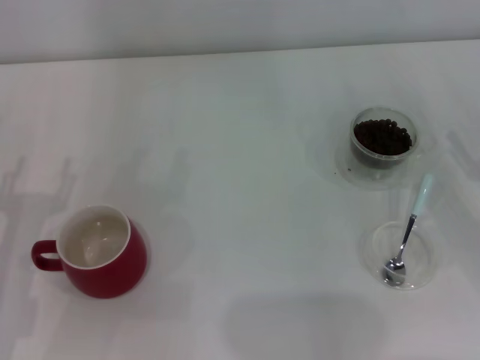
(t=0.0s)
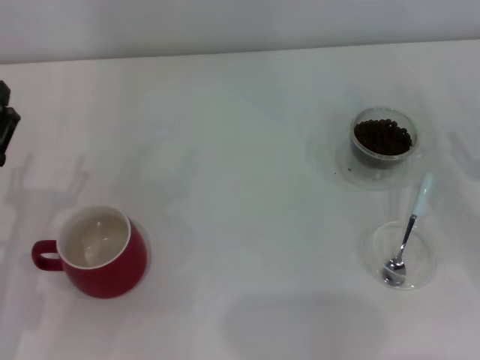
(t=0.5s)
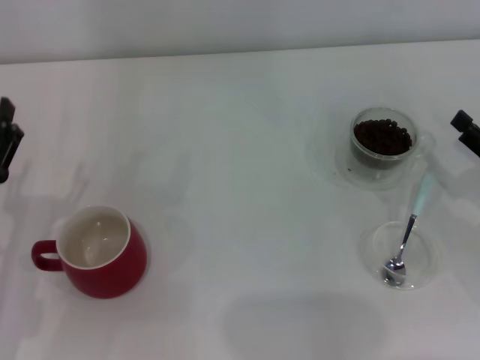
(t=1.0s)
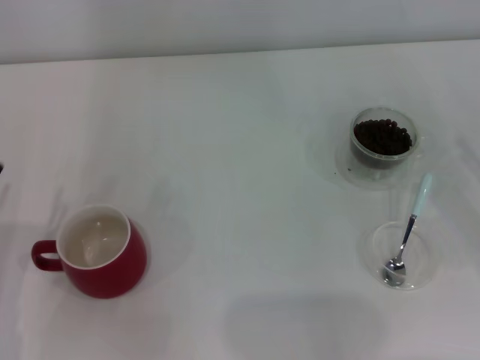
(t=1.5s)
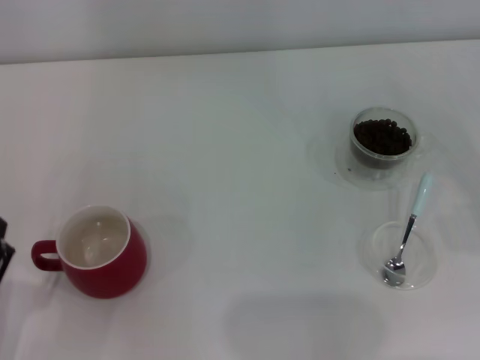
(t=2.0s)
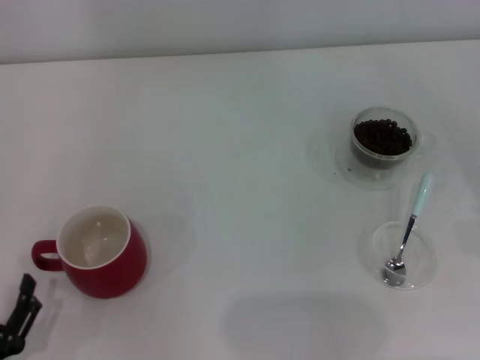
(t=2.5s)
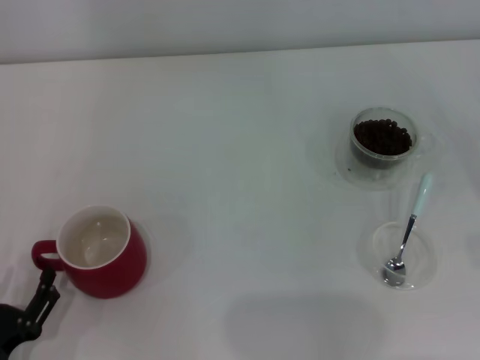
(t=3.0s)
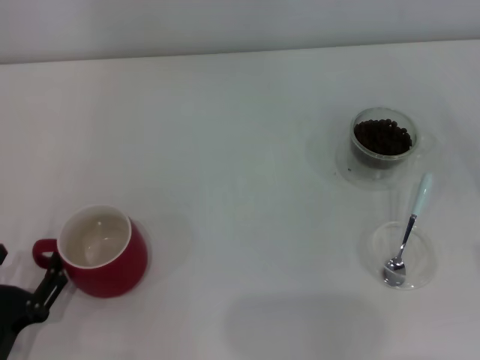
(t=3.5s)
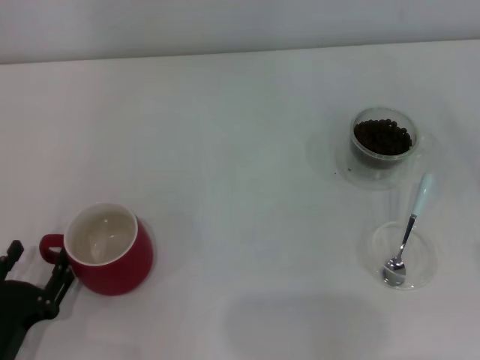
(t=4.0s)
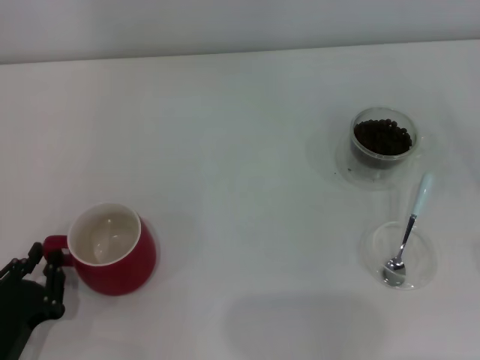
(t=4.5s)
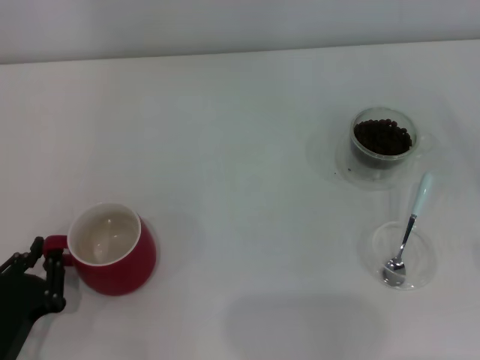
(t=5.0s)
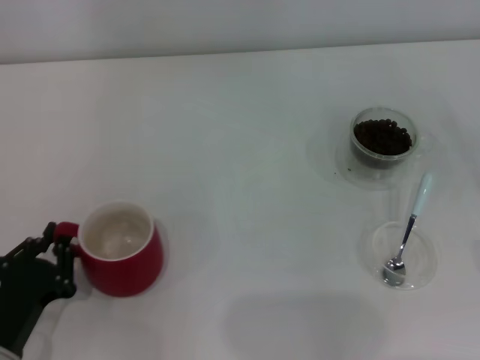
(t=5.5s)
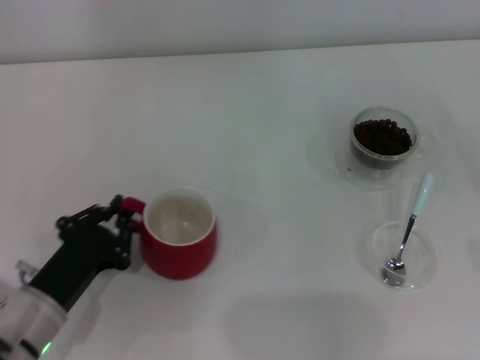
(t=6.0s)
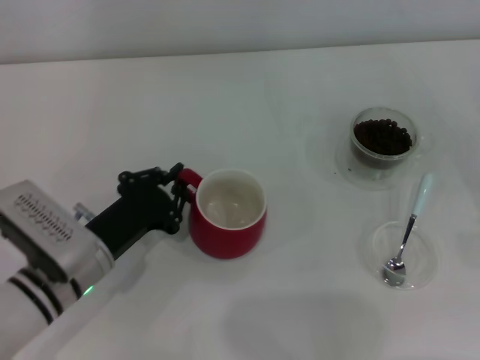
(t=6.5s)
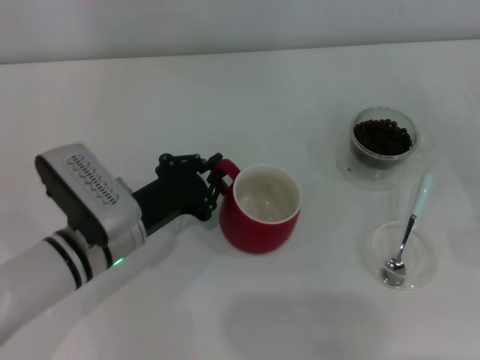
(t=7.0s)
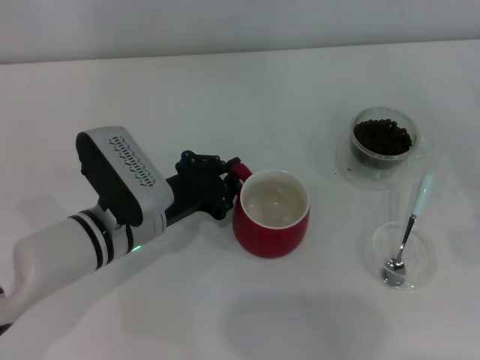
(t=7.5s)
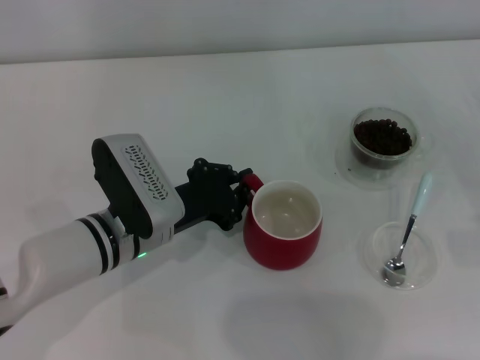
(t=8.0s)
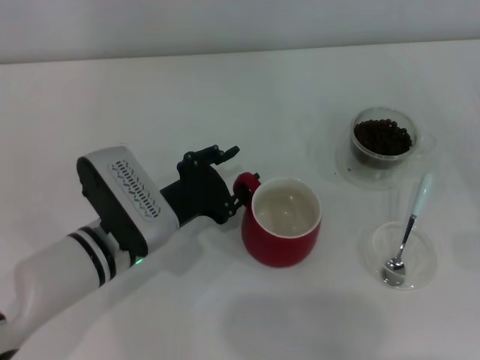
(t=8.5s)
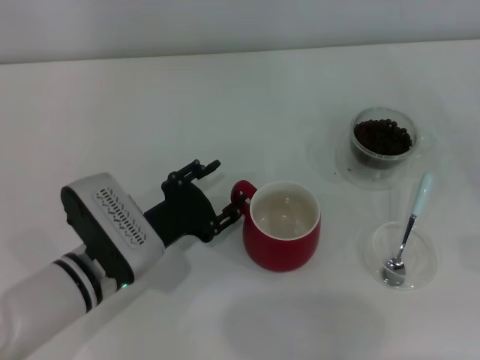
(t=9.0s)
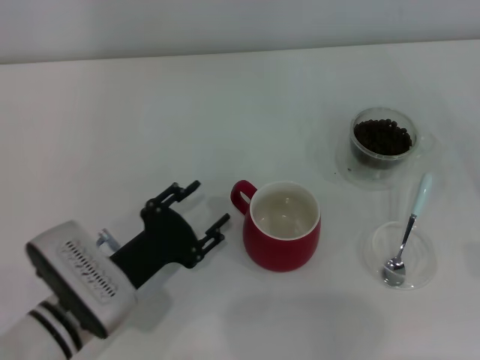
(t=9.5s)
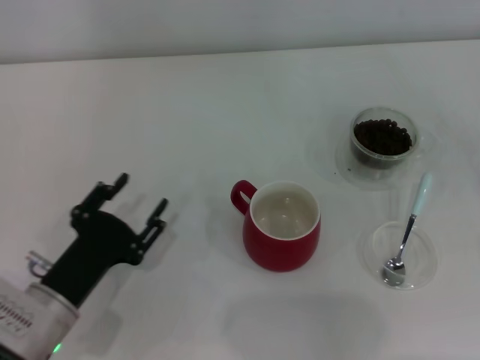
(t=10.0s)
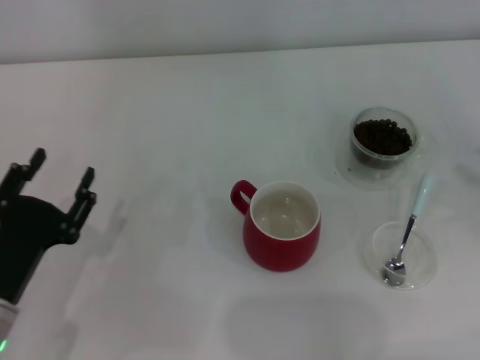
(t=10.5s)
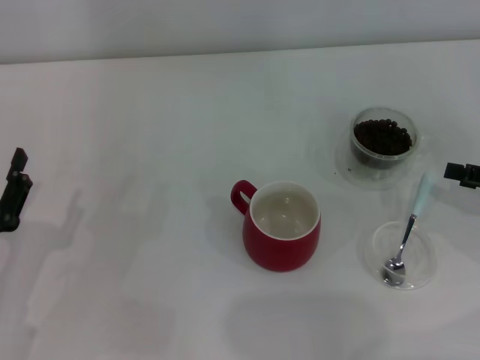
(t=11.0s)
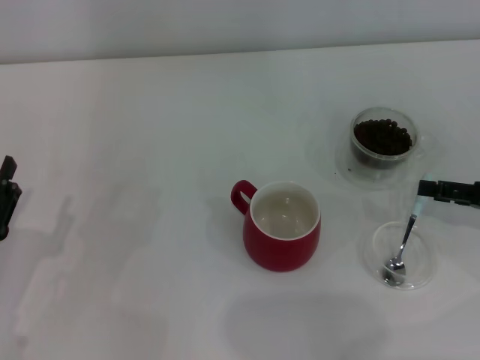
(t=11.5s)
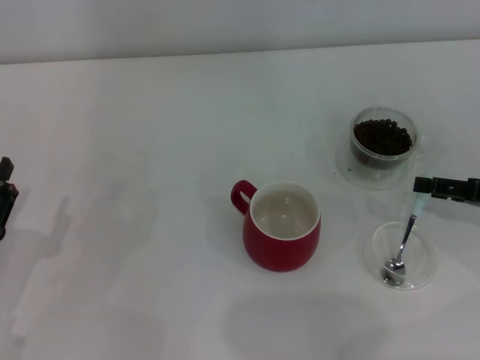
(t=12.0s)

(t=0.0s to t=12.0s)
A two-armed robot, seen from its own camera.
Task of the whole recording: Use a blue spoon to take out the coffee beans from the glass and pour them into the red cup.
Step, t=0.0s - t=9.5s: Move the cup to the center of view with the left gripper.
t=2.0s - t=4.0s: The grippers move only a little.
t=4.0s - t=6.0s: The left gripper moves forward, about 5 cm, and closes up.
t=6.0s - t=8.0s: The left gripper goes roughly 15 cm to the right and forward.
t=8.0s - t=10.0s: The left gripper goes some 15 cm backward and to the left, and opens up.
t=10.0s - t=12.0s: The left gripper moves to the left, about 10 cm. Meanwhile the right gripper shifts some 10 cm to the left and forward.

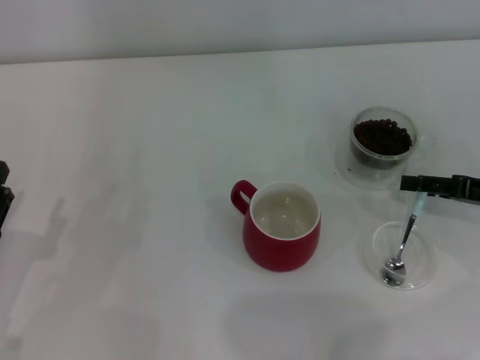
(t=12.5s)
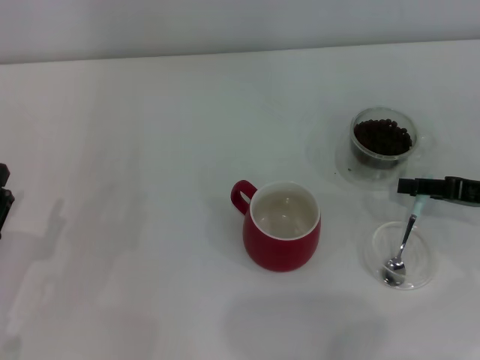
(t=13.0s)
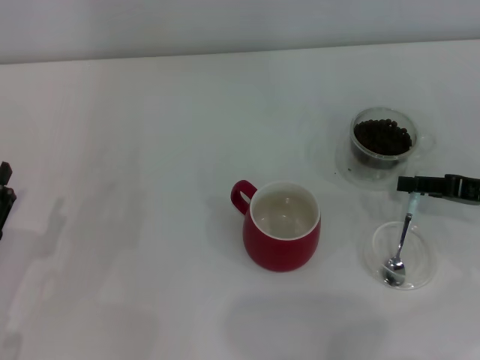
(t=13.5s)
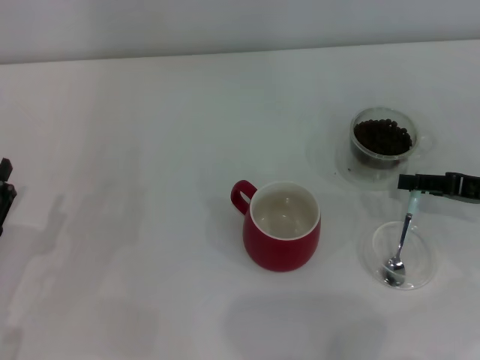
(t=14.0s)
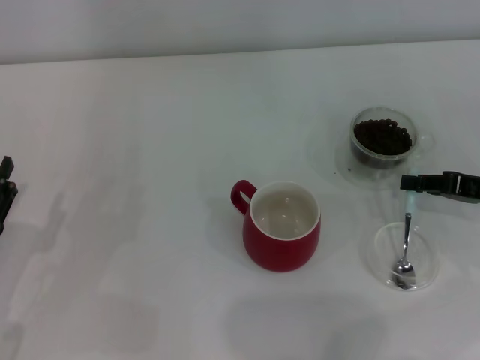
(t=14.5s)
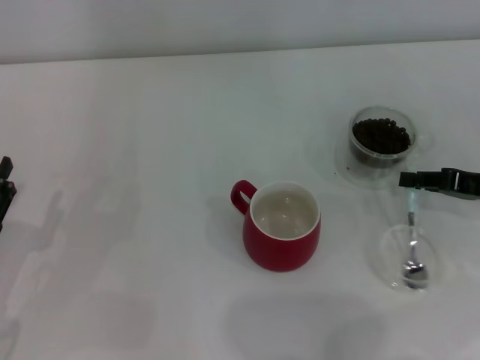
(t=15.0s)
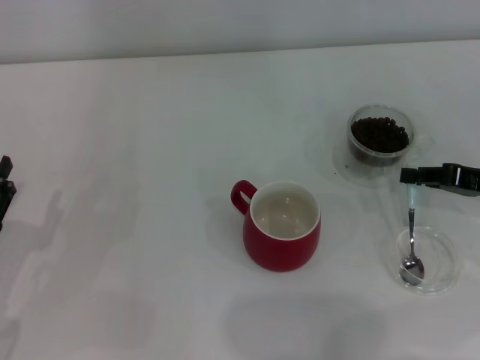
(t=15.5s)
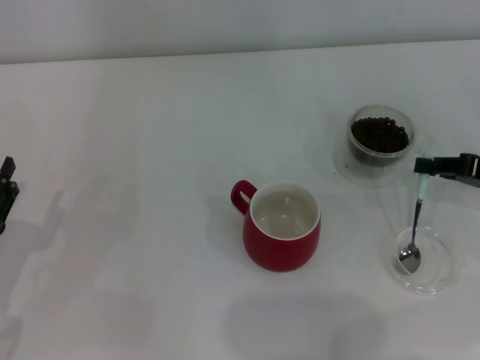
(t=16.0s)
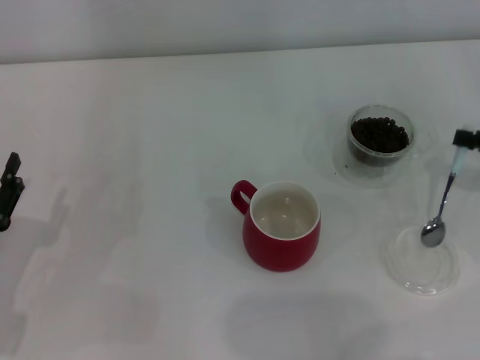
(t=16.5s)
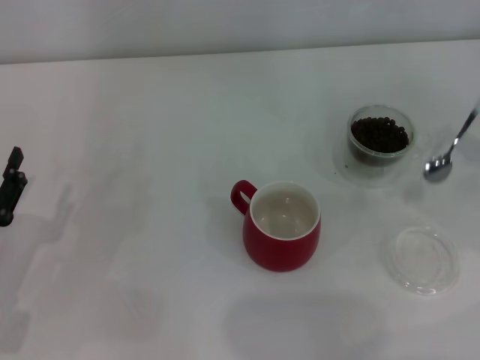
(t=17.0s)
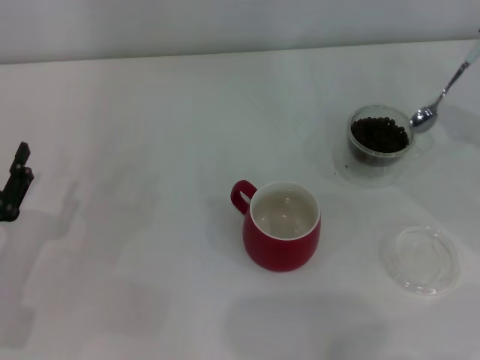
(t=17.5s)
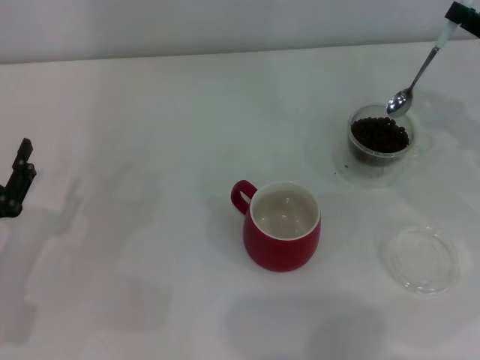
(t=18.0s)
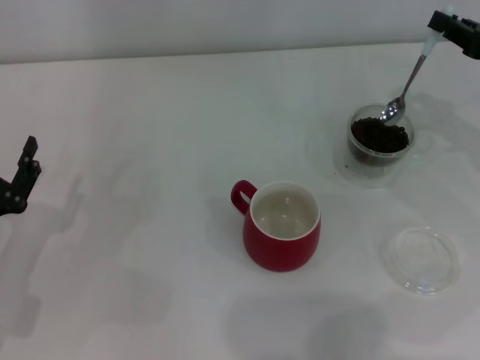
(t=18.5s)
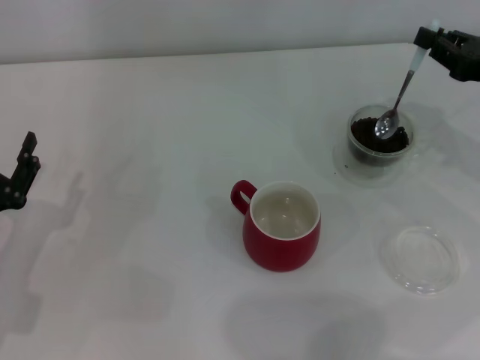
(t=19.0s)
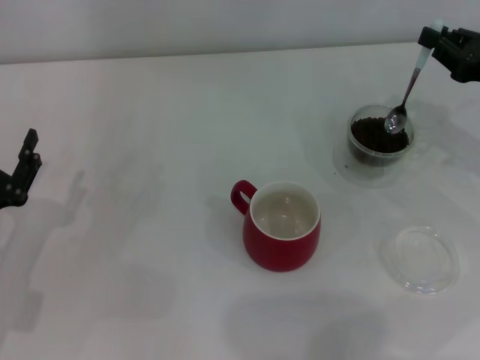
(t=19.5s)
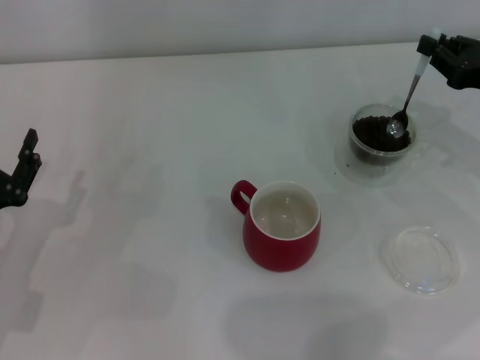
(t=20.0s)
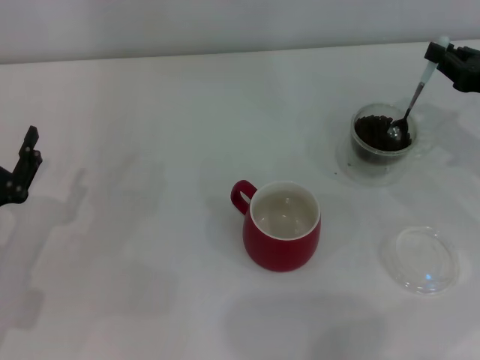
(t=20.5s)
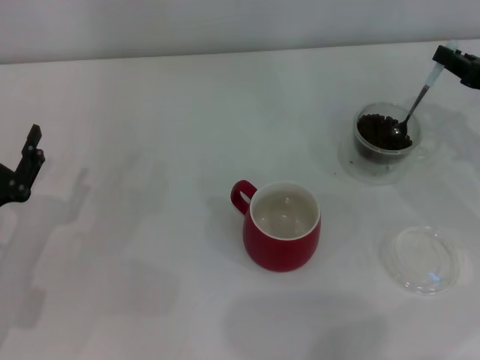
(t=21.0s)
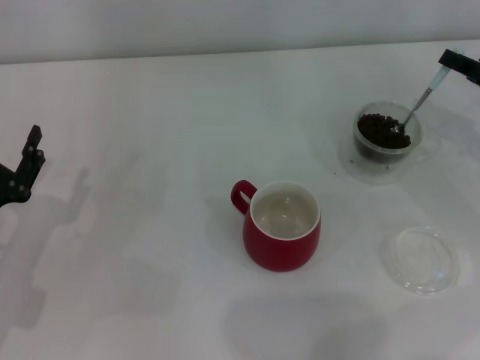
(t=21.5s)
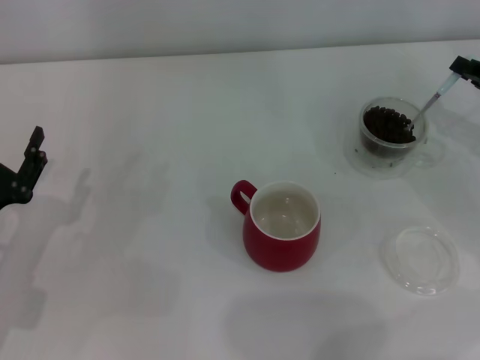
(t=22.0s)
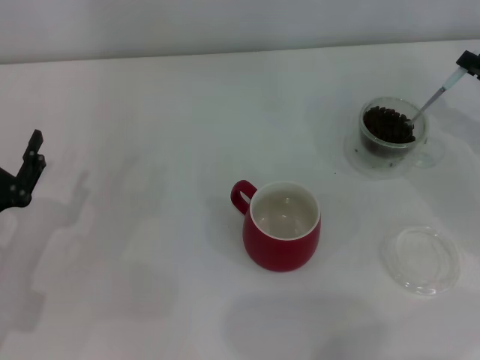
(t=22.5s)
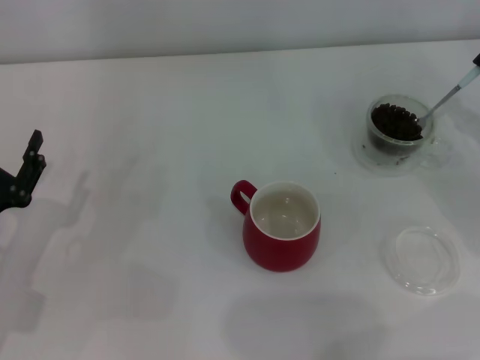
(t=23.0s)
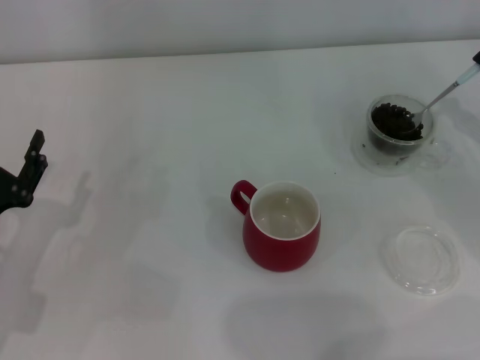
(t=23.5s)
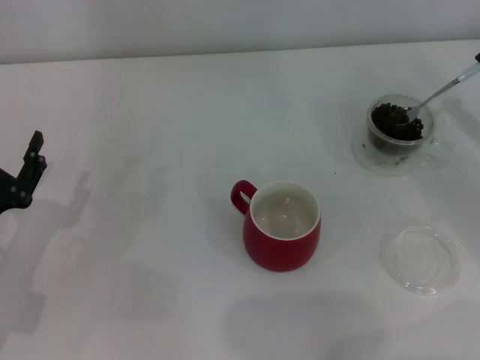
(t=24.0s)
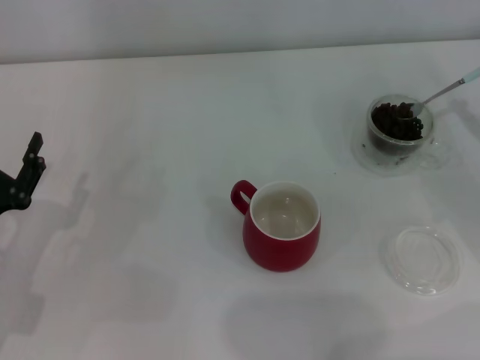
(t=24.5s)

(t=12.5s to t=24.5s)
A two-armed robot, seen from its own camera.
Task of the whole recording: Use a blue spoon to take out the coffee beans from the glass and pour them into the red cup.
Step, t=12.5s - t=16.5s: Pick up the spoon with the right gripper.
t=12.5s - t=14.5s: The right gripper closes up.
t=14.5s - t=16.5s: The right gripper ends up some 5 cm from where it was.
t=16.5s - t=18.5s: The right gripper is displaced forward by some 5 cm.
t=18.5s - t=20.5s: There are only small adjustments of the grippers.

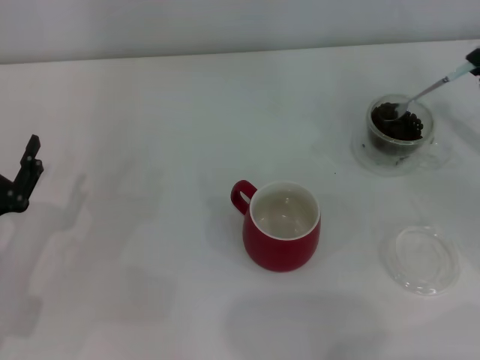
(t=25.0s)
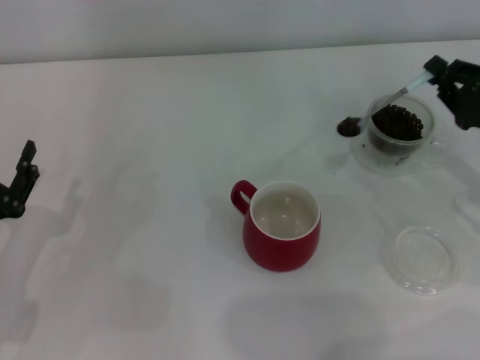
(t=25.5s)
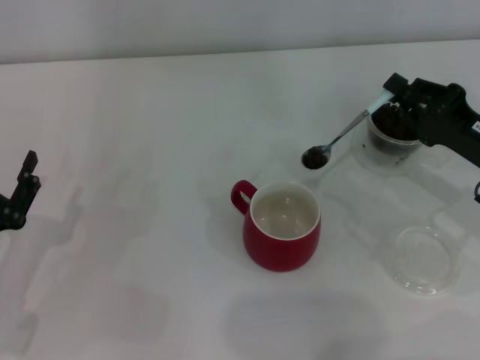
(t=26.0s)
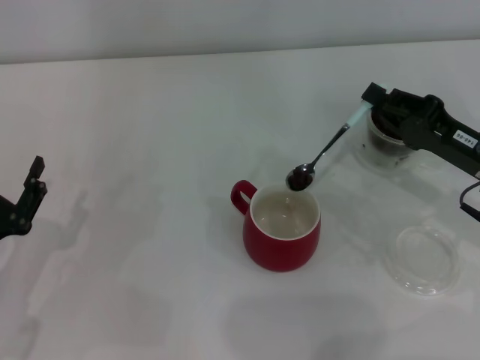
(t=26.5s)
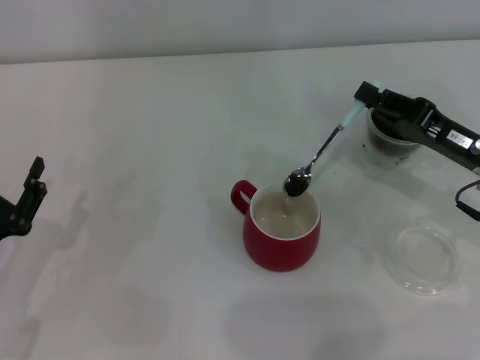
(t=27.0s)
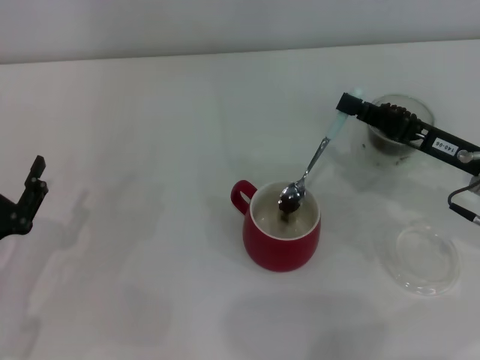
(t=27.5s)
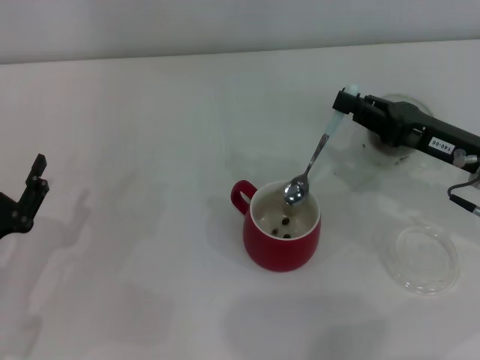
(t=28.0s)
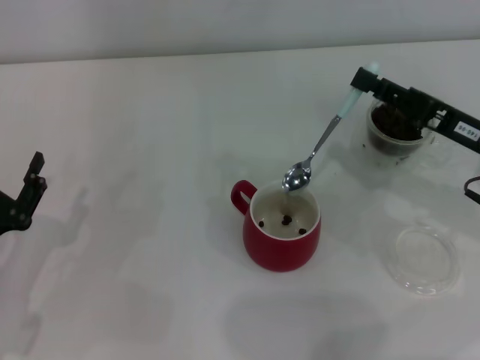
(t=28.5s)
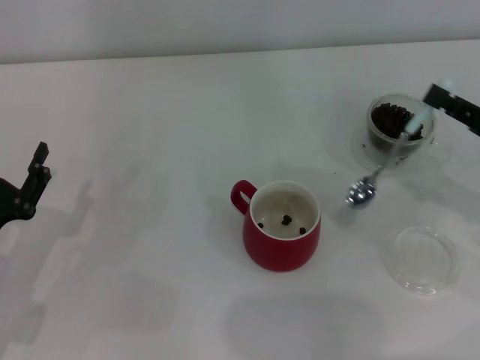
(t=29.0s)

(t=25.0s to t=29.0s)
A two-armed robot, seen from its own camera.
Task of the whole recording: Use a blue spoon to take out the coffee beans from the glass and pour them into the red cup.
Step, t=25.0s - t=28.5s: Scoop a spoonful of beans into the cup with the right gripper.
t=25.0s - t=27.0s: The right gripper is displaced to the left by some 10 cm.
t=27.0s - t=29.0s: The right gripper goes roughly 5 cm to the right.
